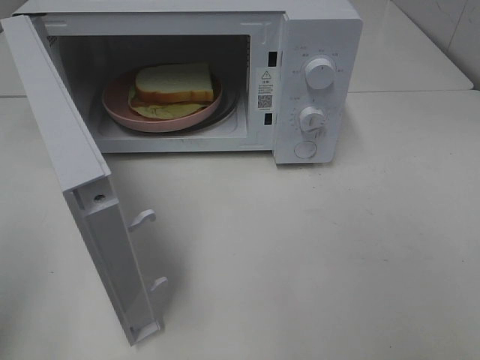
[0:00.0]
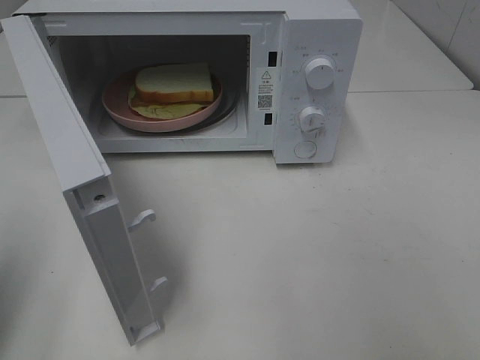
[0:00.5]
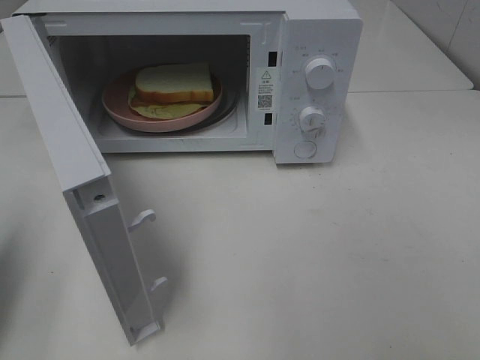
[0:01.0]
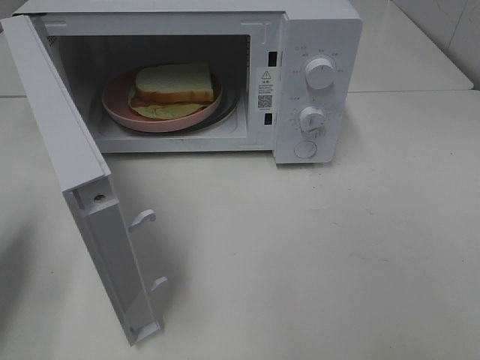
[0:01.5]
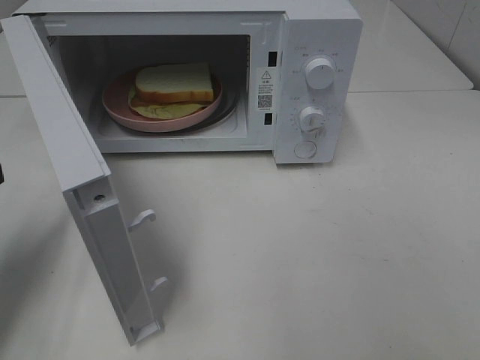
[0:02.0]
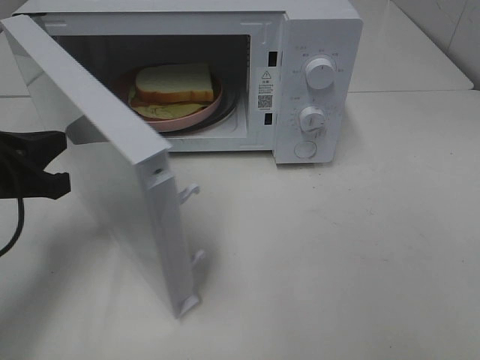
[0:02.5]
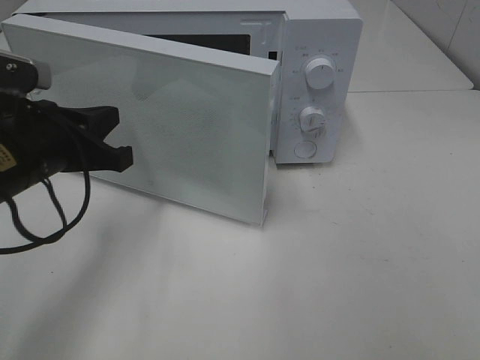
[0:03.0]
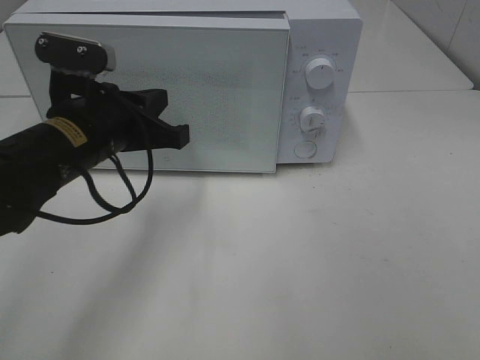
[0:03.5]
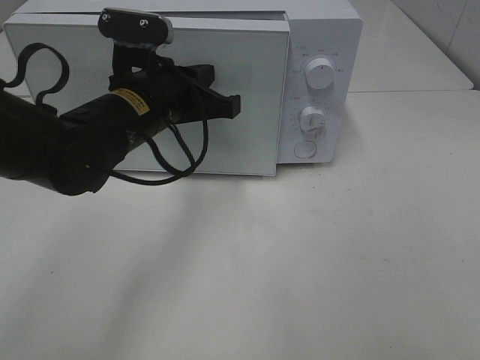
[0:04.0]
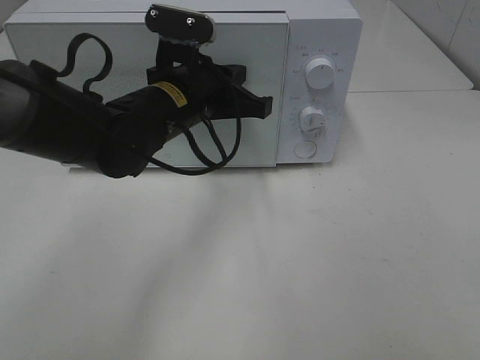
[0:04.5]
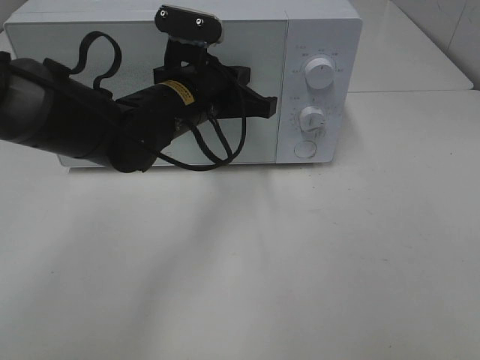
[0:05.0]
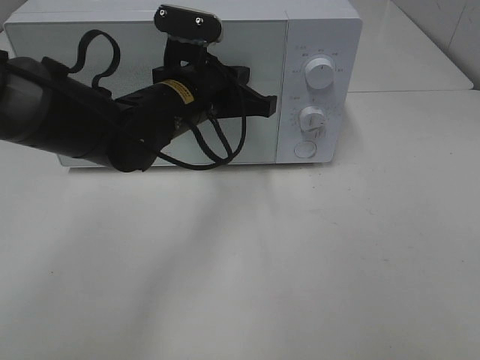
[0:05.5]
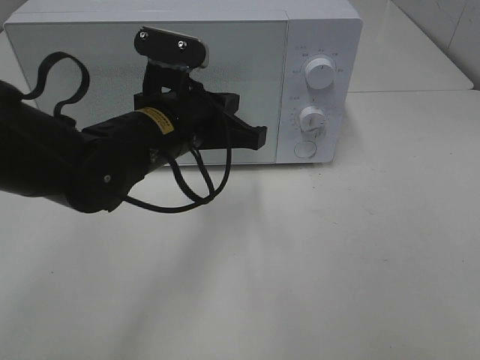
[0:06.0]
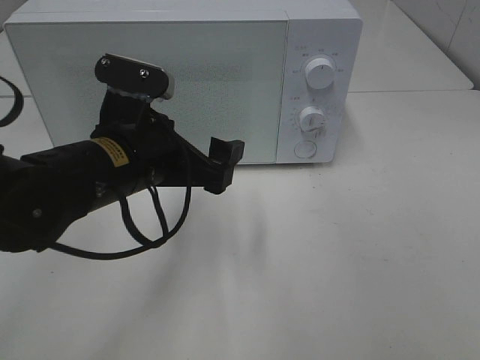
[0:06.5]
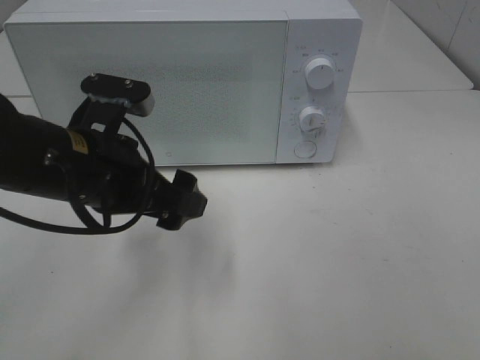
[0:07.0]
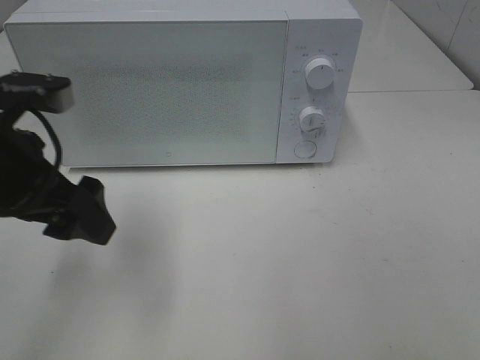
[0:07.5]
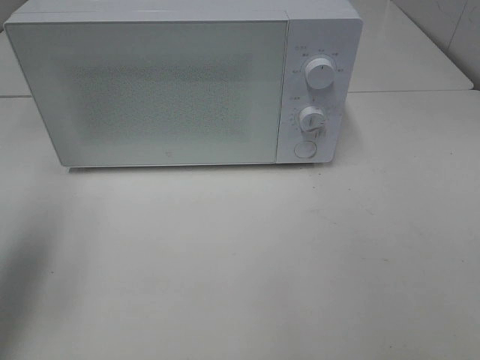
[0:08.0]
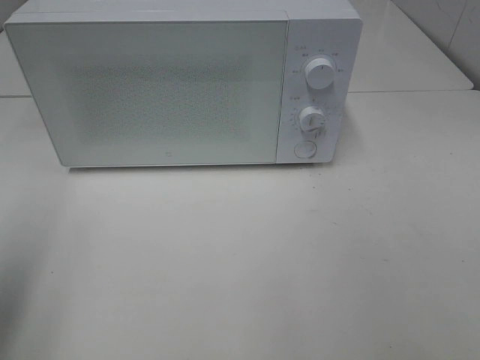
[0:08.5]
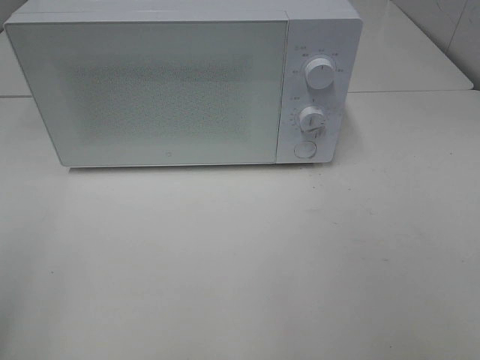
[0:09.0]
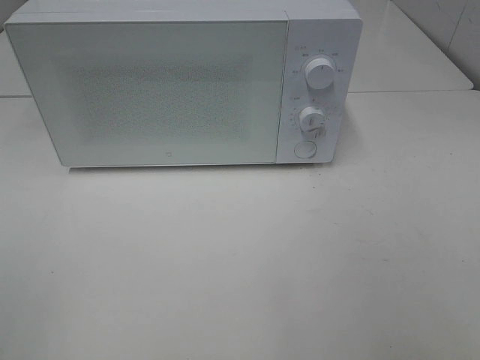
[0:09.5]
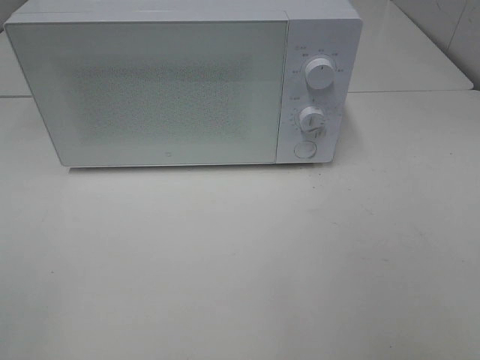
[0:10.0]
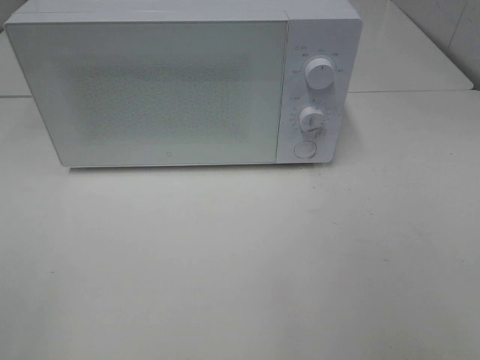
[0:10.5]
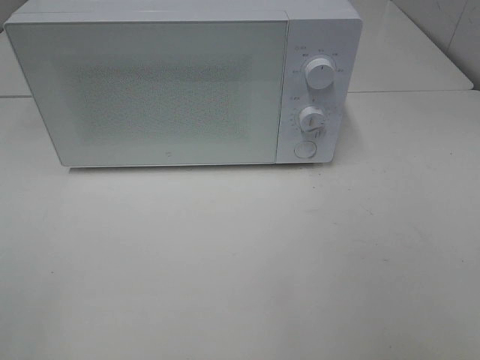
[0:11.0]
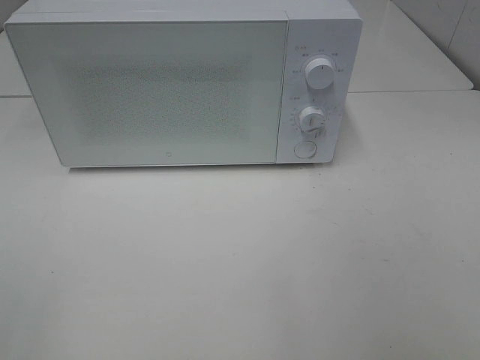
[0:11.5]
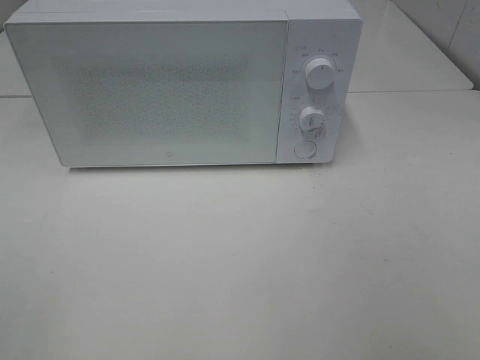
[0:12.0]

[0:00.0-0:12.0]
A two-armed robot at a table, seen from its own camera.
Task of the whole recording: Heat Sandwich.
Step, 0:00.0 to 0:06.0: Left hand: close the microwave door.
0:00.0 to 0:02.0: The left gripper travels forward and downward by about 20 cm.
0:02.0 to 0:04.0: The left gripper heads to the right and forward, covering about 25 cm.
0:04.0 to 0:06.0: The grippers stay close to where they were, moving slightly.
0:06.0 to 0:08.0: The left gripper shifts some 25 cm to the left and upward, and opens.
0:08.0 to 0:10.0: The left gripper is displaced backward by approximately 20 cm.
0:10.0 to 0:12.0: Neither gripper changes place.

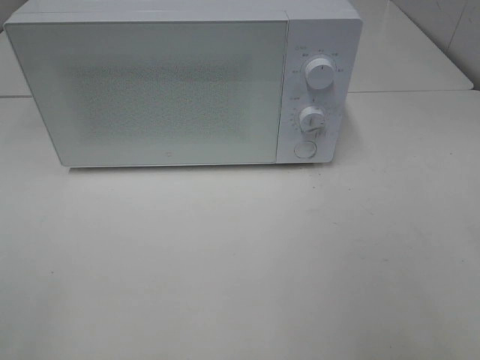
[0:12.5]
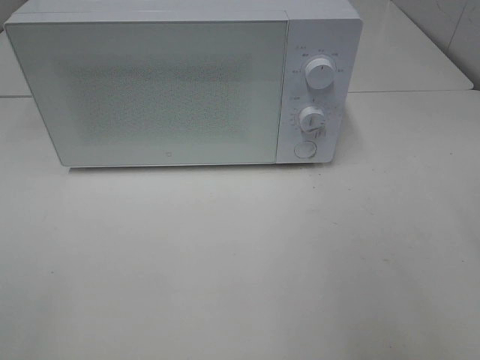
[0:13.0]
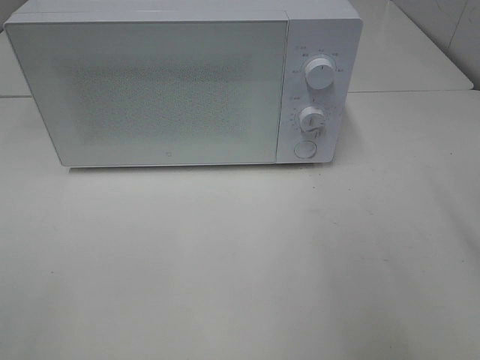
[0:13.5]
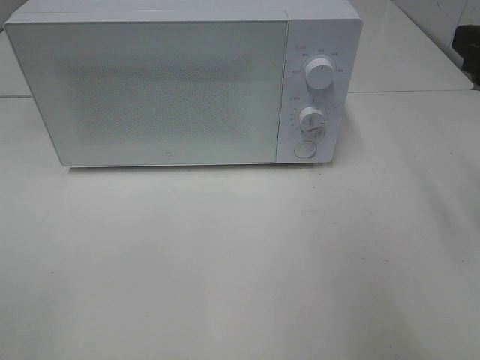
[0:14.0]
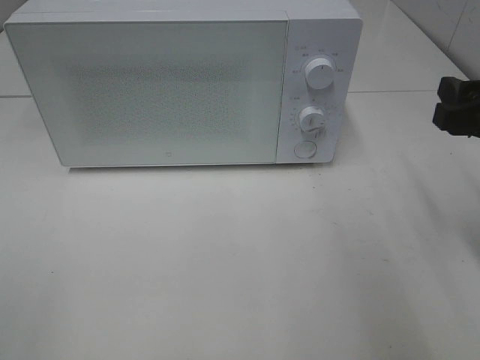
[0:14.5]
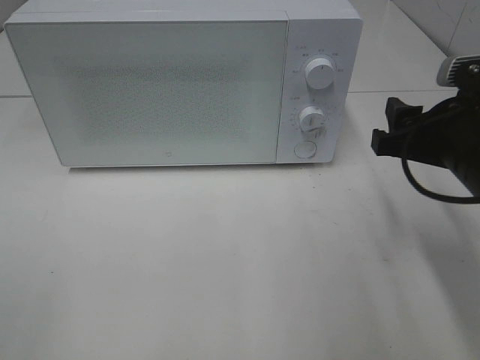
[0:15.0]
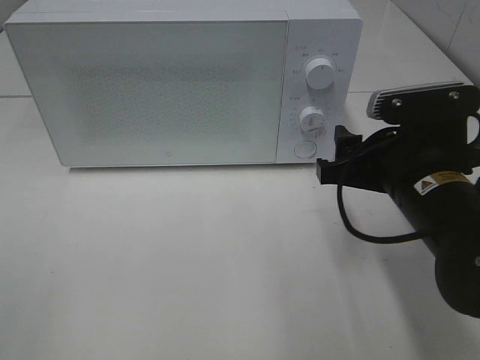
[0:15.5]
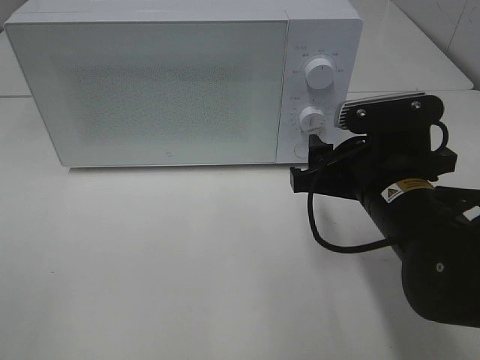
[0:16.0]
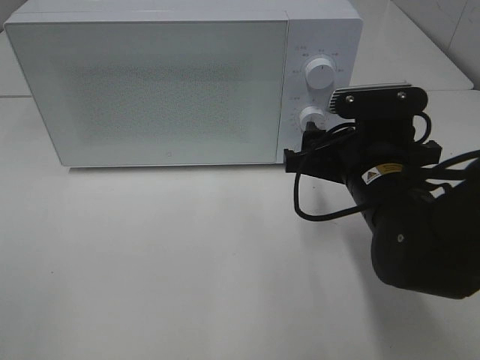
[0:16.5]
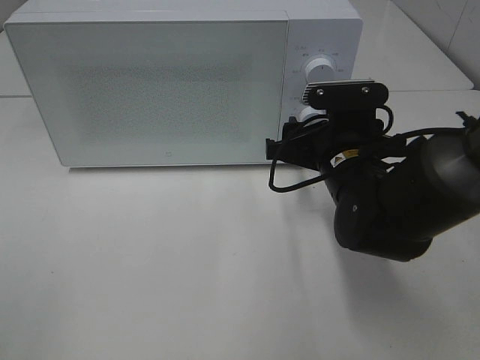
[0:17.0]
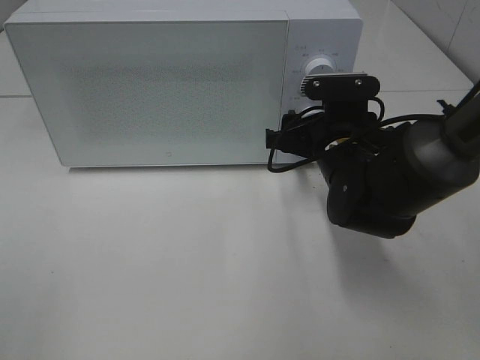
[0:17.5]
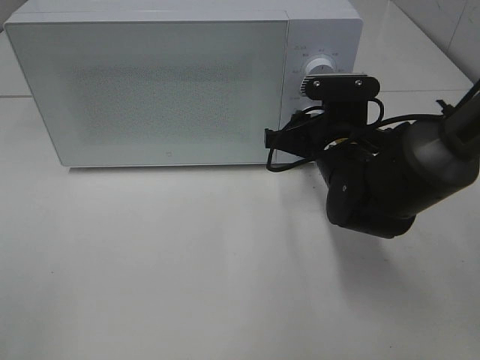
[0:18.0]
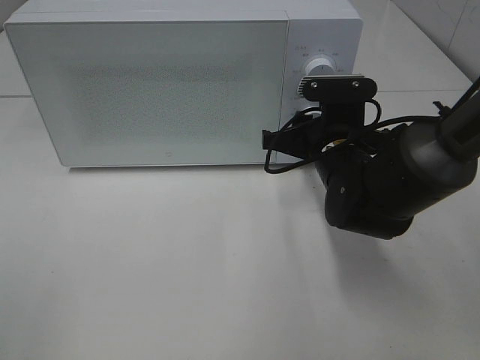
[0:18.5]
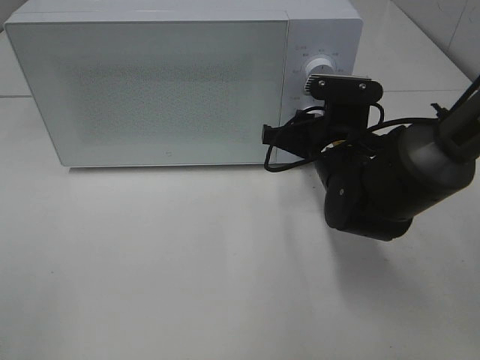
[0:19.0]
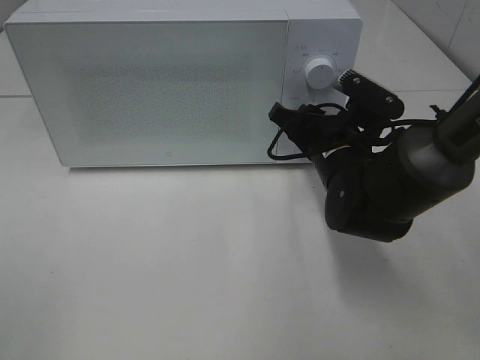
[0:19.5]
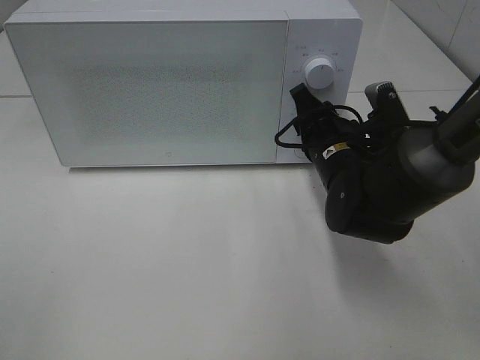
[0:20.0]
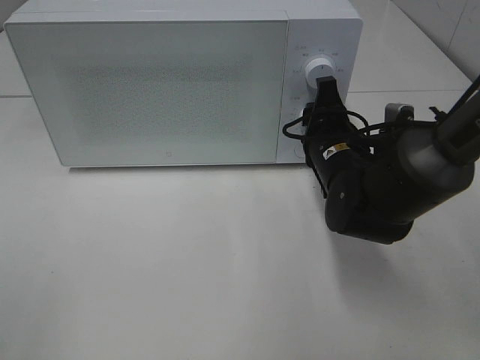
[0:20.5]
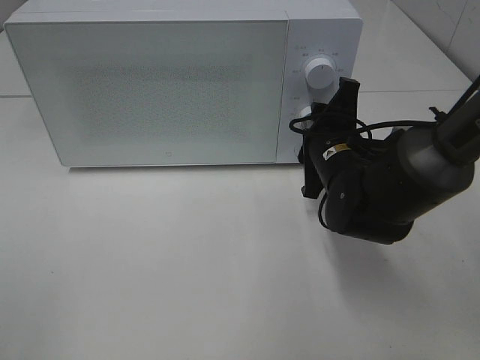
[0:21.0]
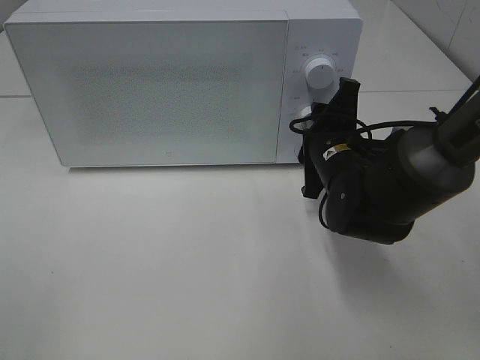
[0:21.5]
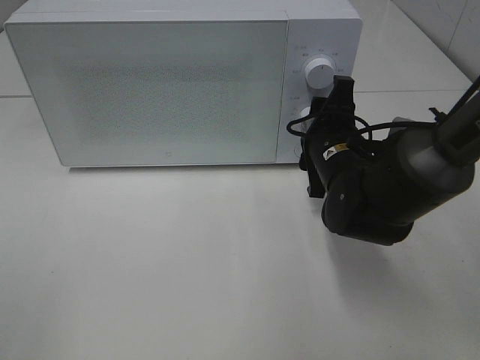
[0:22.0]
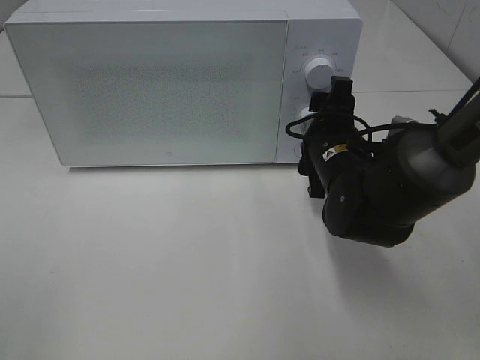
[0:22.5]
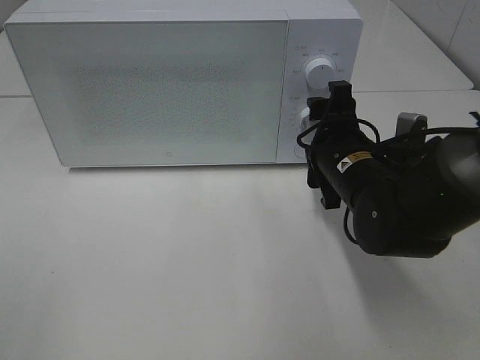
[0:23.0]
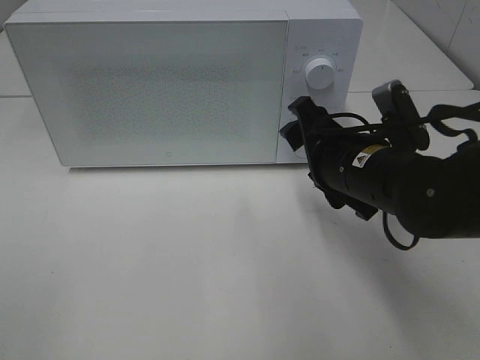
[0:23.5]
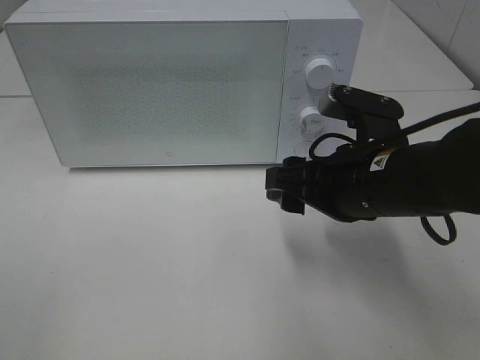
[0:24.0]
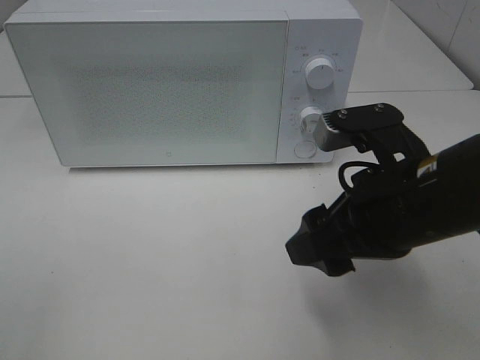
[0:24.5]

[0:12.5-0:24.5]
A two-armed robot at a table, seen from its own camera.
Task of the whole recording: Heat Sandwich.
Step, 0:12.5 to 0:22.5: Right hand: twist timer button.
0:12.5 to 0:14.5: The right gripper is displaced forward and downward by roughly 20 cm.
0:14.5 to 0:16.5: The right gripper shifts about 15 cm to the left and downward.
0:16.5 to 0:18.5: The right gripper moves forward, roughly 5 cm, and closes.
0:22.5 to 0:24.5: The right gripper shifts approximately 15 cm backward and upward.

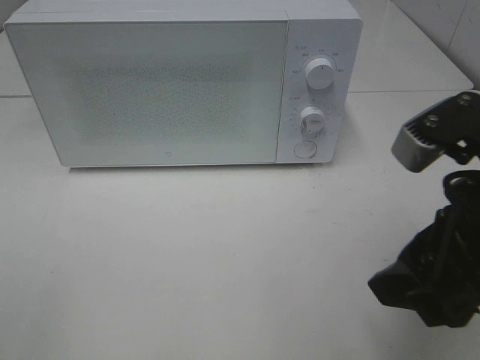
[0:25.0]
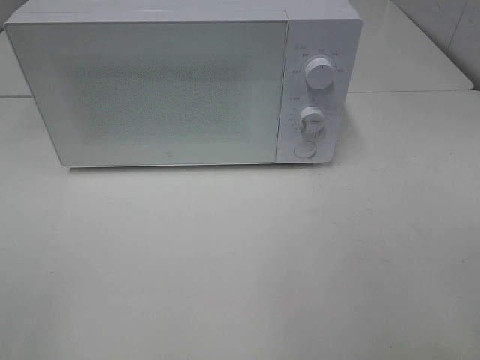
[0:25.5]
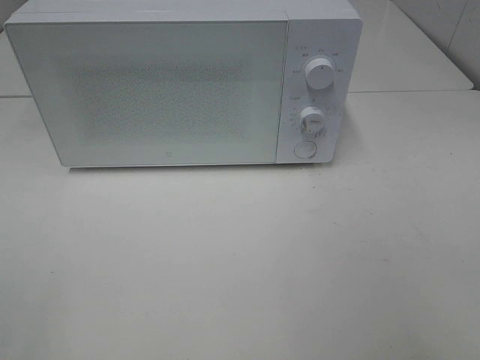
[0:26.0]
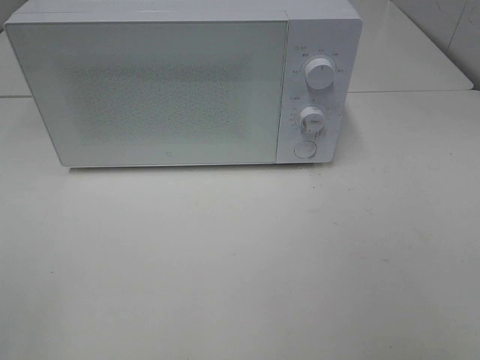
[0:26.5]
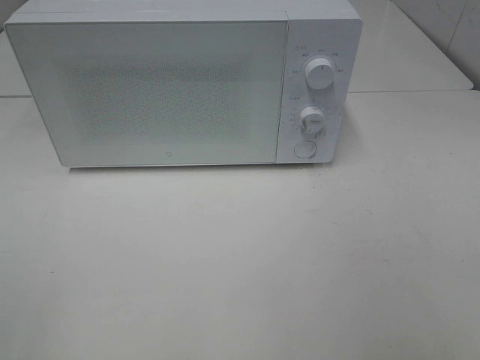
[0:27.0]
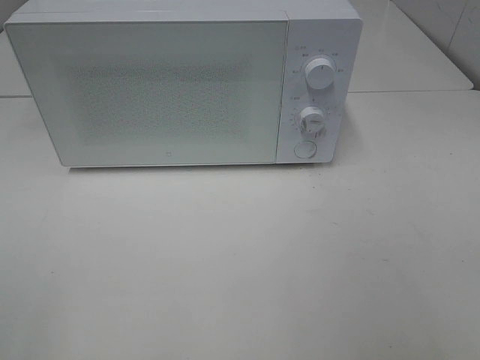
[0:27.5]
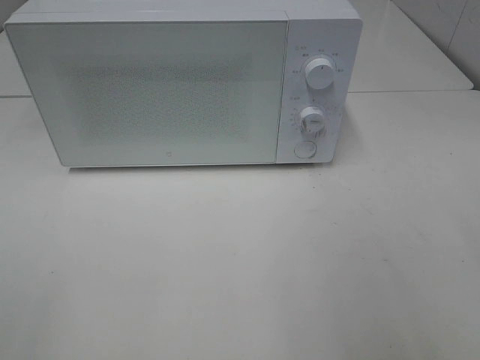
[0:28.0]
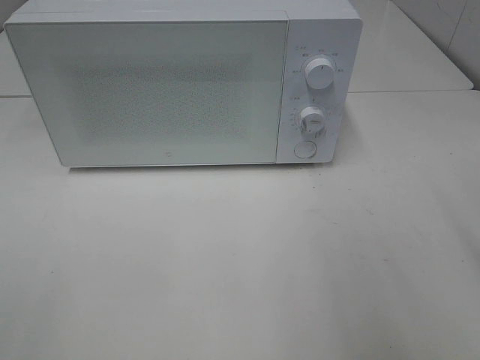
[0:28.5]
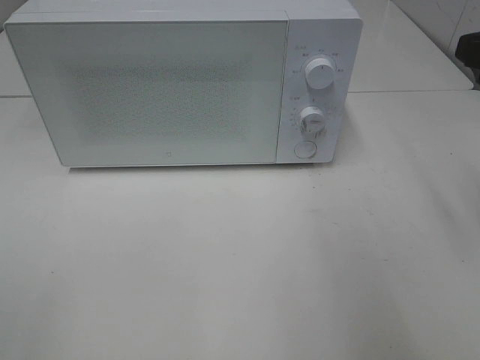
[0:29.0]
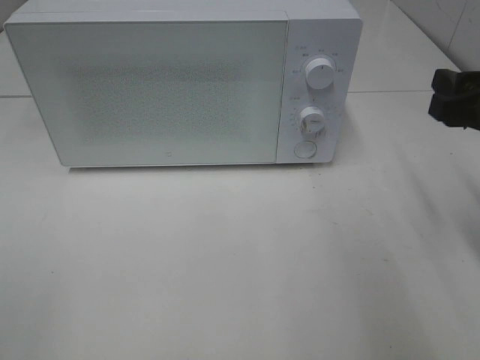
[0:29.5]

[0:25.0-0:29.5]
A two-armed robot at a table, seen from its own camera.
Task of the whole recording: Heat Sandwich.
0:25.0 to 0:27.0: The right gripper is displaced backward and to the right by roughly 15 cm.
0:27.0 to 0:29.5: The right gripper shifts about 25 cm forward.
